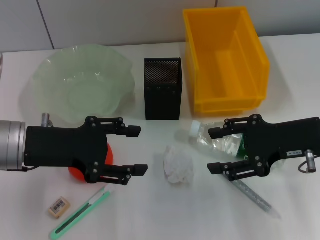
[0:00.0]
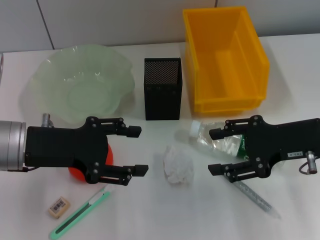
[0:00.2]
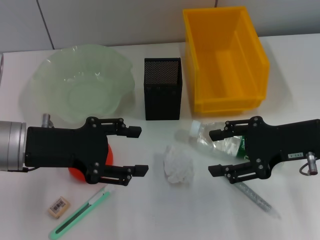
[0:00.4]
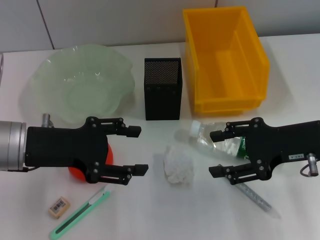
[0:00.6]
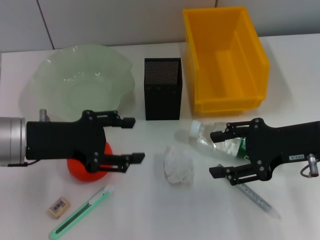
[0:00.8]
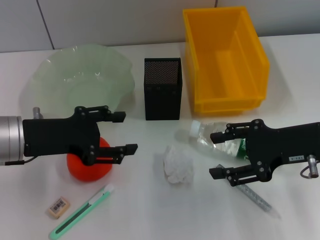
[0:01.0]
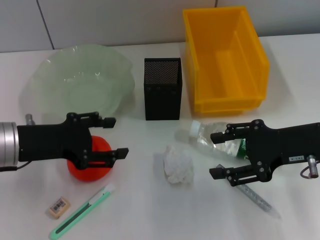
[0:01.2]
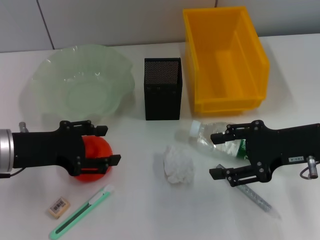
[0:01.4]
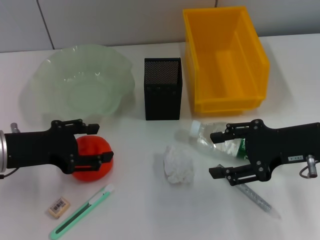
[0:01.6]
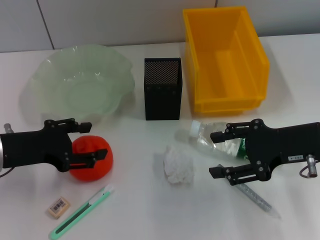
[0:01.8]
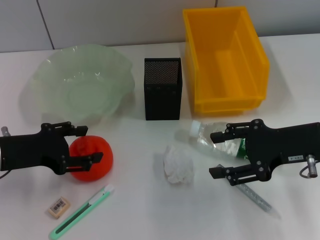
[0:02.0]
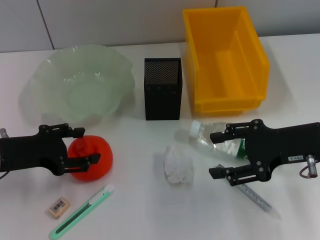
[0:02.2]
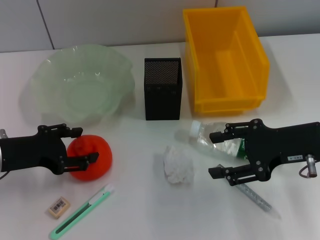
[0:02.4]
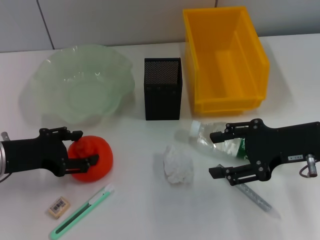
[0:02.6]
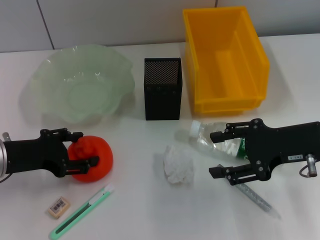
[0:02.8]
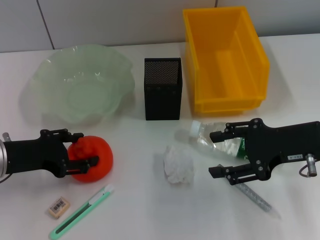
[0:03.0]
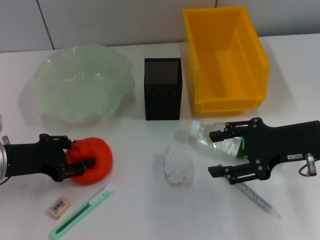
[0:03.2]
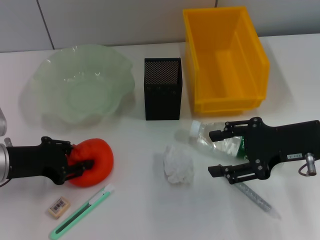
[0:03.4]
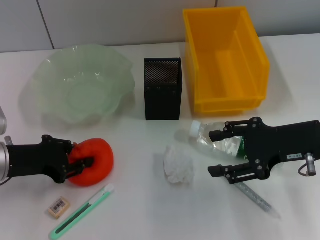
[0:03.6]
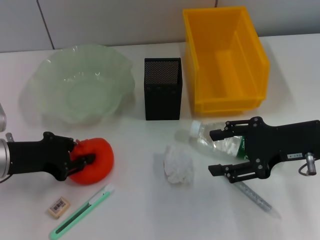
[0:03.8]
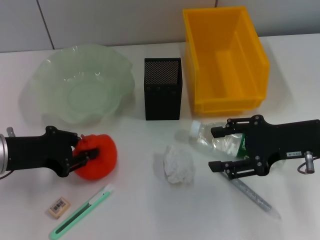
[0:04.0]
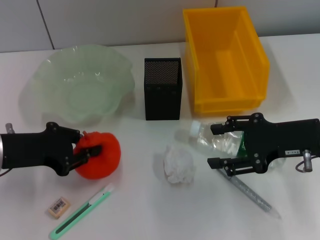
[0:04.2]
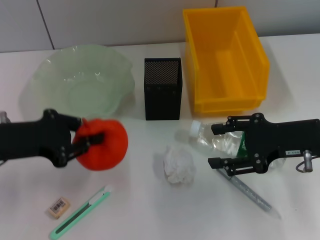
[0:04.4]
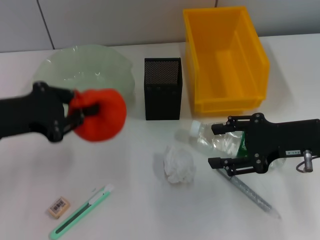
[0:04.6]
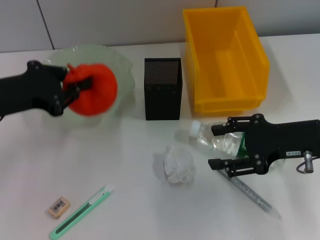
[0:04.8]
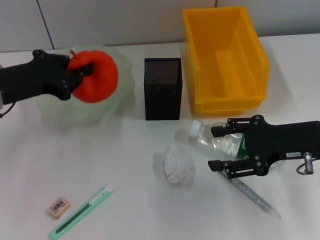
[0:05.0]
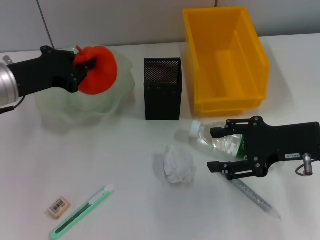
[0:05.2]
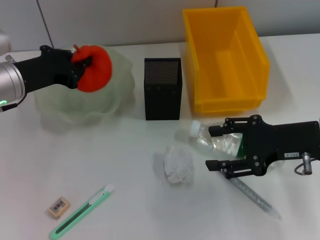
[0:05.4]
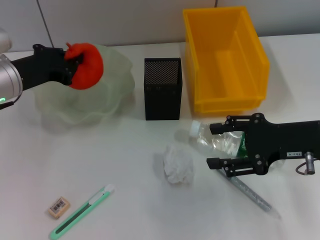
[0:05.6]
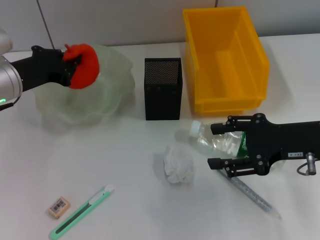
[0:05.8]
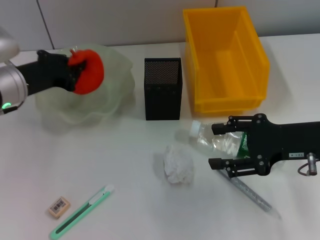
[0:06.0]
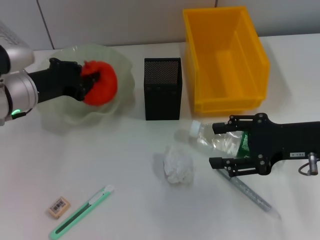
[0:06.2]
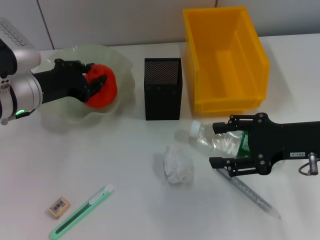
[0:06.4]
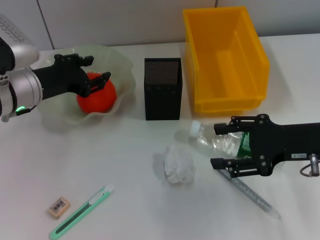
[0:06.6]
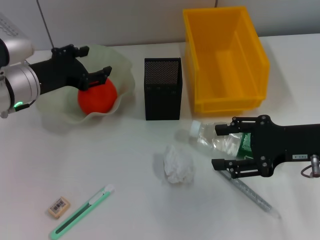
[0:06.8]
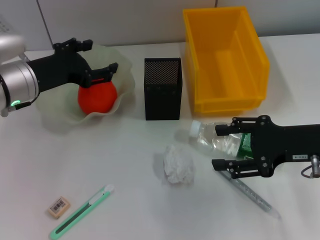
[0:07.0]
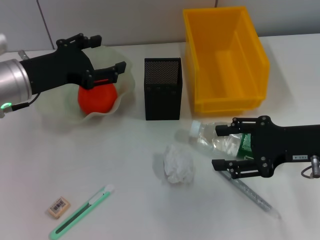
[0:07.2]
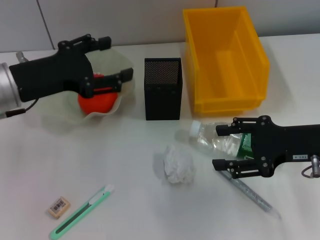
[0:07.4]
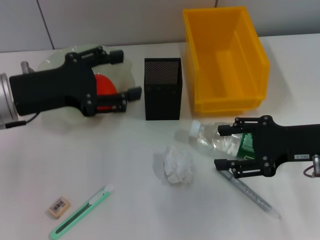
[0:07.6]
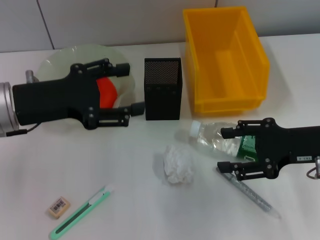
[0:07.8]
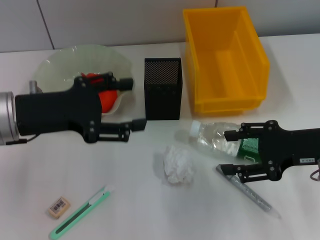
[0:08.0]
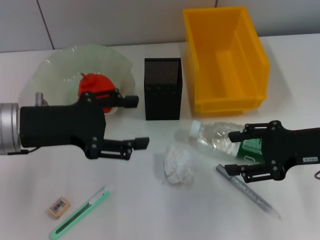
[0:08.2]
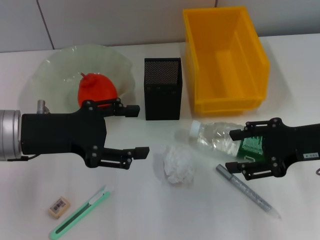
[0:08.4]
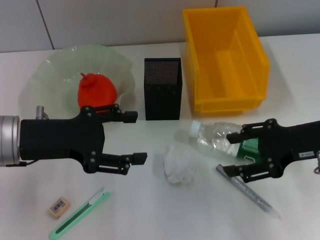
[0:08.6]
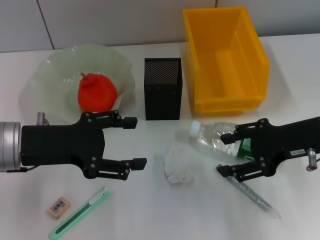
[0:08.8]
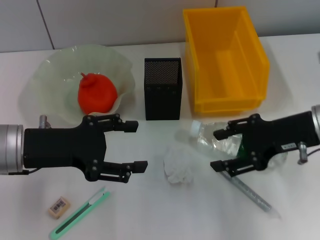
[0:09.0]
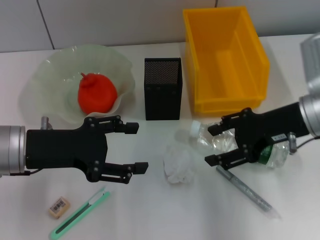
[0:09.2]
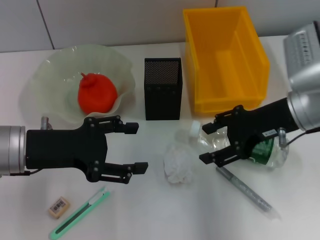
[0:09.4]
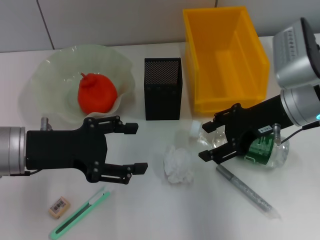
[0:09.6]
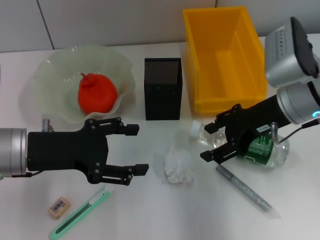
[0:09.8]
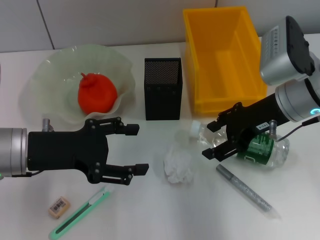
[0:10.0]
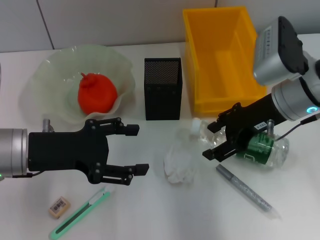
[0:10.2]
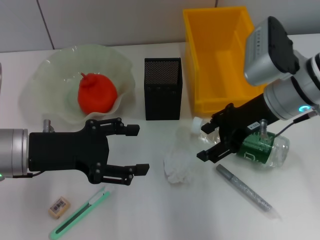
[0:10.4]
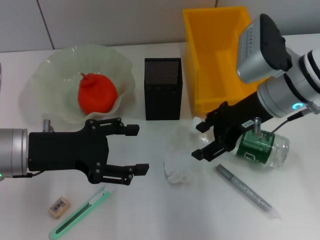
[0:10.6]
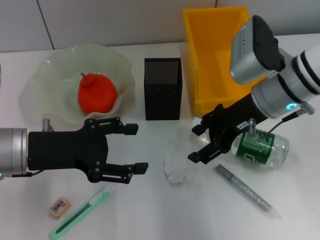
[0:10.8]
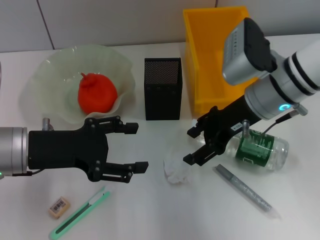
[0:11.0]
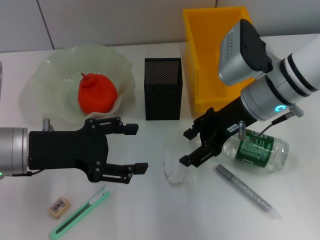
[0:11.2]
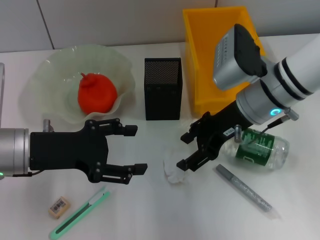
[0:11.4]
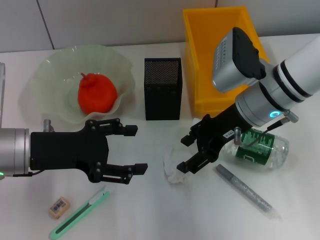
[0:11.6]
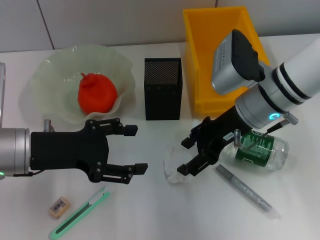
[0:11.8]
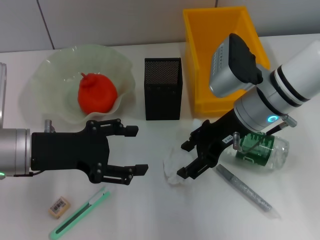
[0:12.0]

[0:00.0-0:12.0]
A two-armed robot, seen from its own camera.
Step, 0:00.0 to 0:03.6: Grab the orange with the left hand.
Step, 0:03.8 to 0:06.6: Place the orange into the fruit bowl with the left hand.
0:00.0 to 0:01.6: The grippers move only a little.
0:01.6 to 0:03.0: The grippers move only a little.
0:03.0 to 0:04.4: The left gripper goes about 5 cm upward, and closes.
0:04.4 to 0:06.0: The left gripper heads forward, covering roughly 10 cm.
0:06.0 to 0:07.6: The left gripper moves backward, some 5 cm, and opens.
0:09.0 to 0:10.4: The right gripper moves to the left and forward, about 10 cm.
0:10.4 to 0:12.0: There are only small adjustments of the grippers.

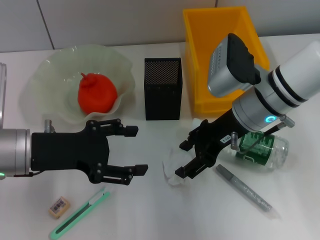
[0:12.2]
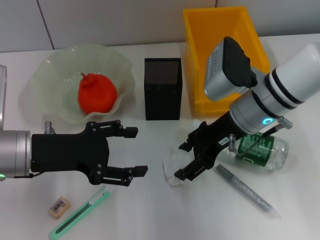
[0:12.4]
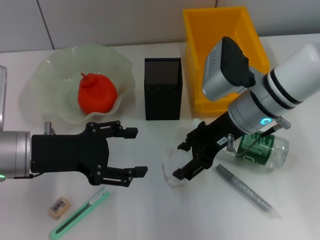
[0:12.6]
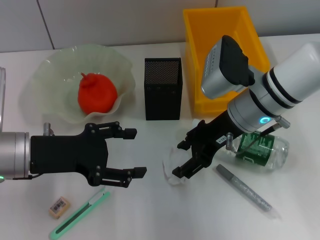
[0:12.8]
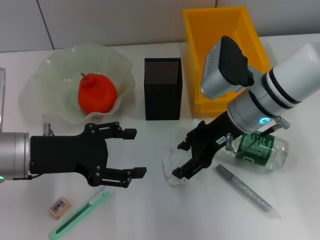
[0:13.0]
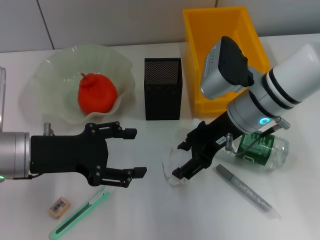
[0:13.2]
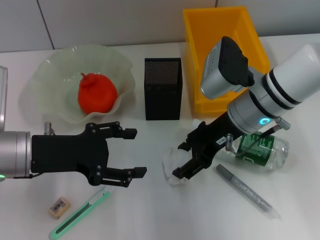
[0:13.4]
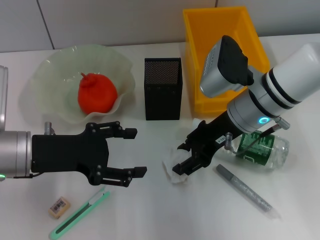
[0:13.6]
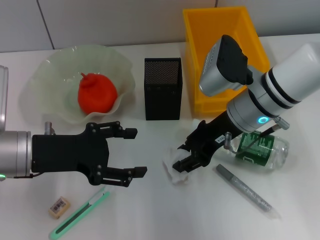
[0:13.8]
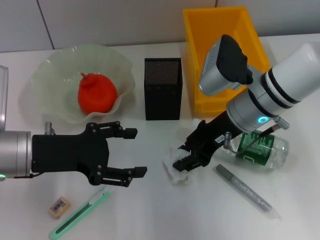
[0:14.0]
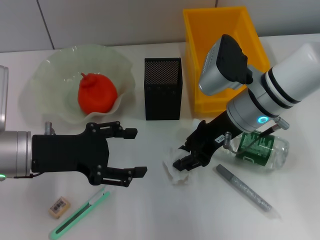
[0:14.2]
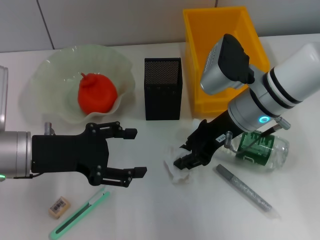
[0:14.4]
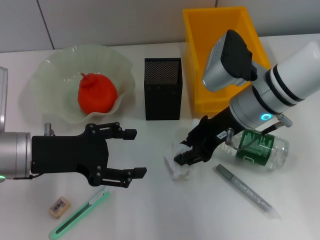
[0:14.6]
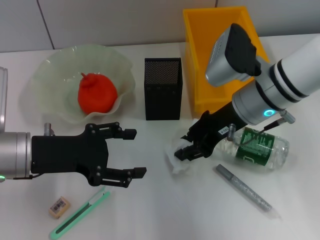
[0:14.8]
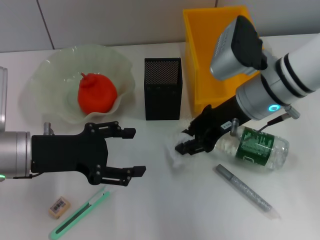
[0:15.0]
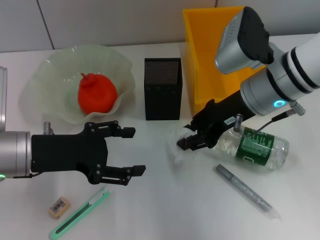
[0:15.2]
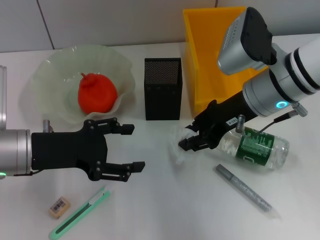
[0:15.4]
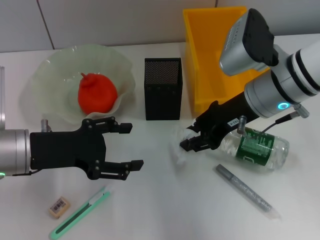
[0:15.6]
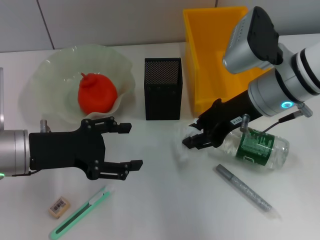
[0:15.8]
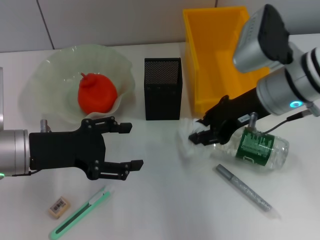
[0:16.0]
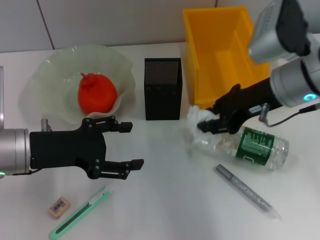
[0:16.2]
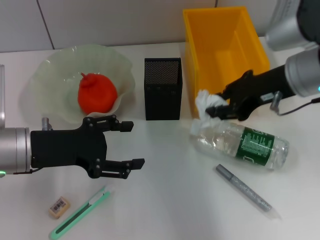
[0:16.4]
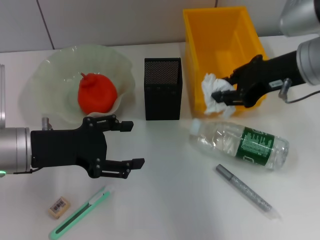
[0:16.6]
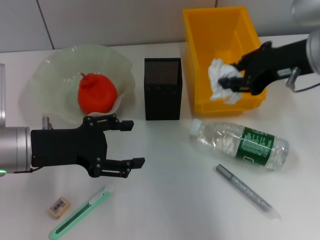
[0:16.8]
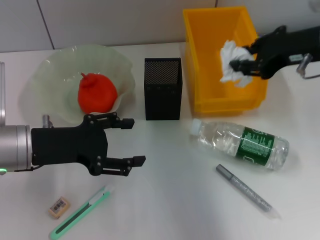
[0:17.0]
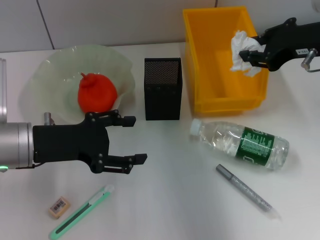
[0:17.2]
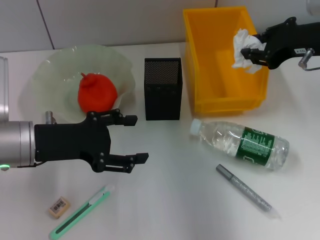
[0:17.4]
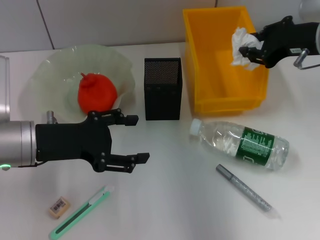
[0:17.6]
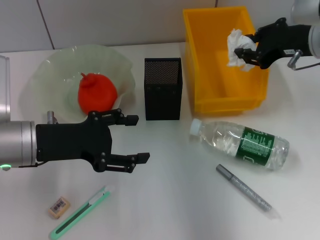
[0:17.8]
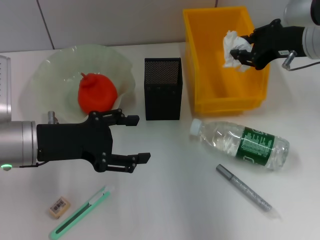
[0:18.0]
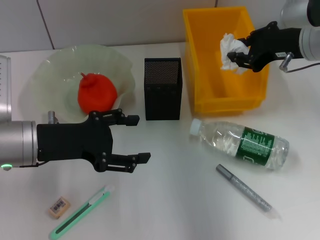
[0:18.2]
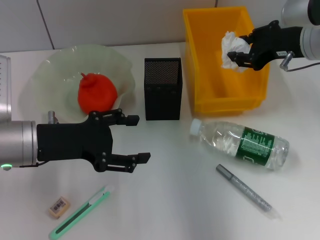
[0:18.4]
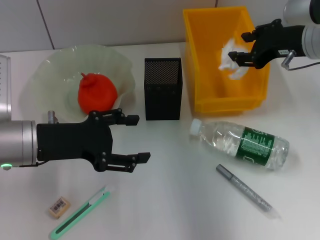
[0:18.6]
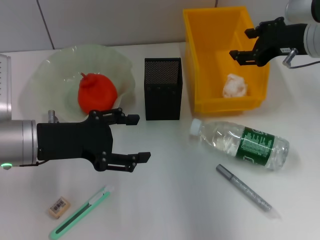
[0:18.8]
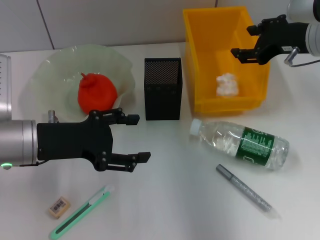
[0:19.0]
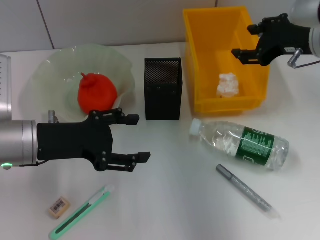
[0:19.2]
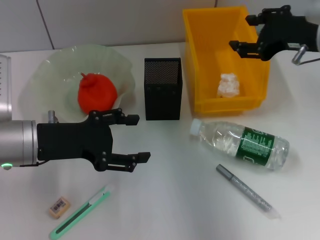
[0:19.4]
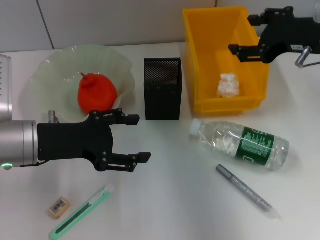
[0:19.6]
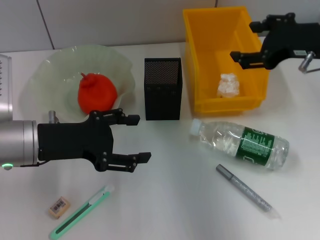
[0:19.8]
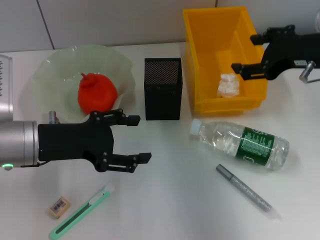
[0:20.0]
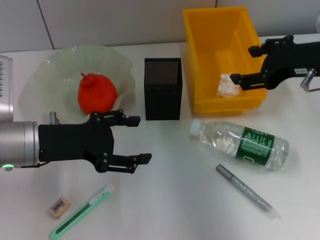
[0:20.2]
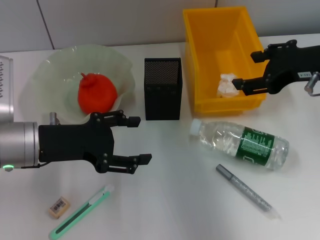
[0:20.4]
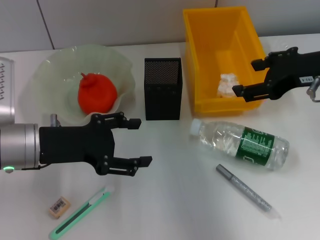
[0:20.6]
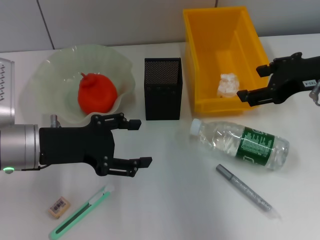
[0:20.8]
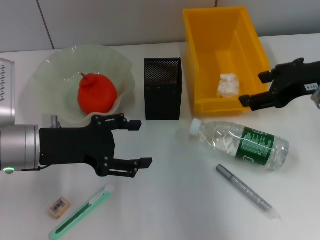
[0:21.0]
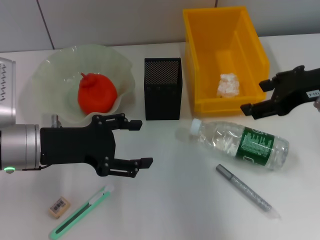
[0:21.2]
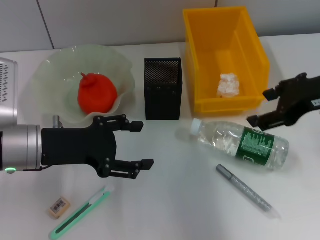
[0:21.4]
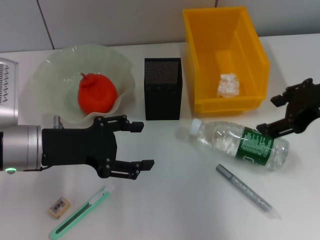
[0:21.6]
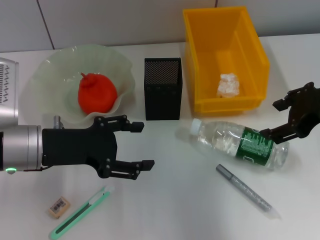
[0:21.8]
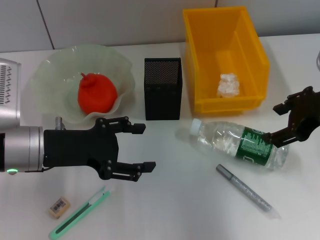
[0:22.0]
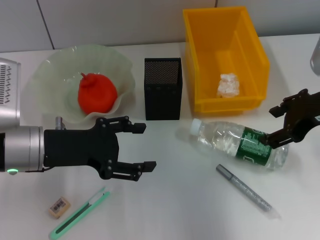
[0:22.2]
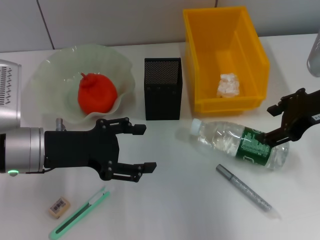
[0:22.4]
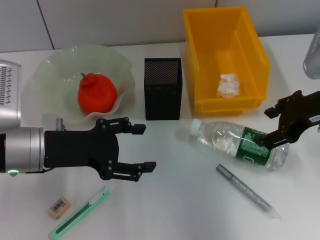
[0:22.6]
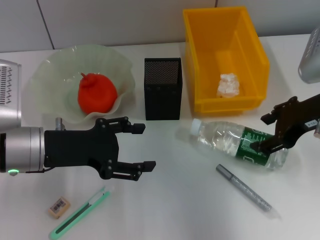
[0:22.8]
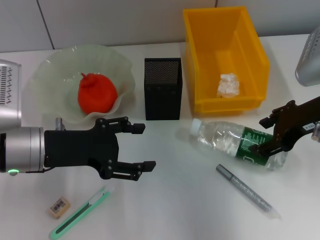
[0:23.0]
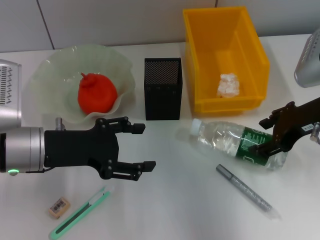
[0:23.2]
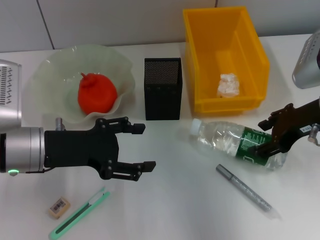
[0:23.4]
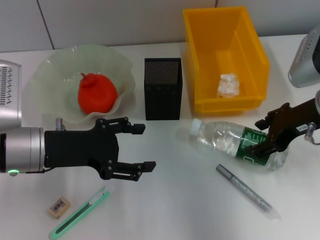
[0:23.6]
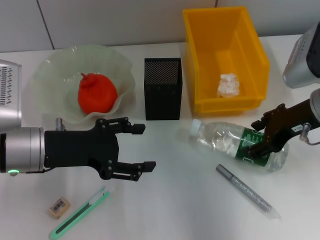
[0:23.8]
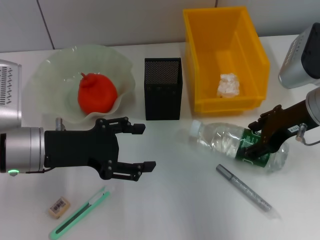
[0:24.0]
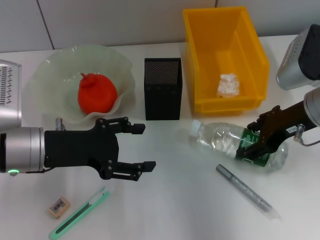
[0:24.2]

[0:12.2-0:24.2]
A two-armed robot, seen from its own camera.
Step, 0:12.2 to 0:14.2: Grab the paper ball with the right hand.
Step, 0:14.4 to 0:19.0: Place the paper ball into the trash can with the right hand.
0:12.2 to 0:13.8: Both grippers stay about where they are.
0:13.8 to 0:15.2: The right gripper closes its fingers.
0:15.2 to 0:16.6: The right gripper travels to the right by some 5 cm.
0:16.6 to 0:18.2: The right gripper changes place by about 5 cm.
0:18.2 to 0:19.8: The right gripper moves approximately 5 cm, and opens.
0:21.2 to 0:22.6: The grippers make only small movements.
0:22.6 to 0:24.2: The grippers move only a little.
